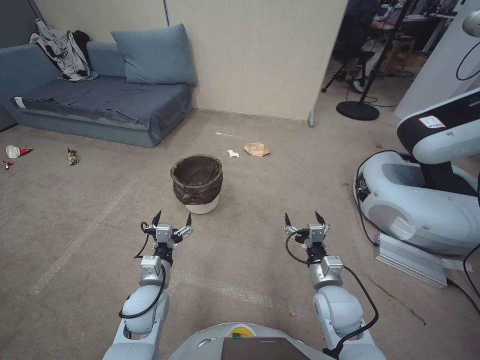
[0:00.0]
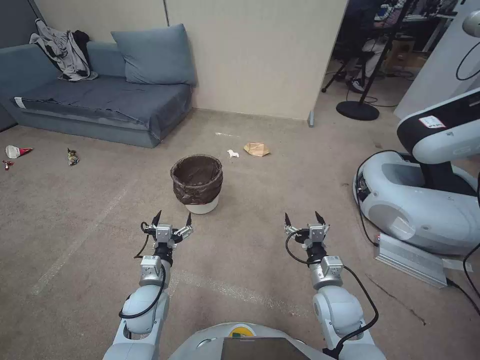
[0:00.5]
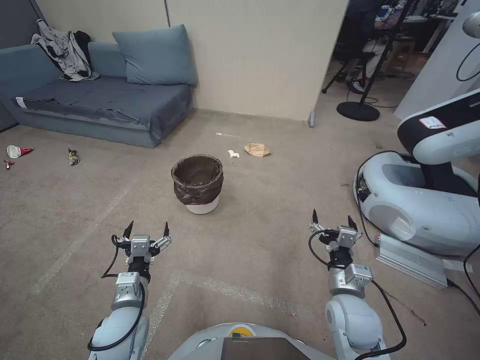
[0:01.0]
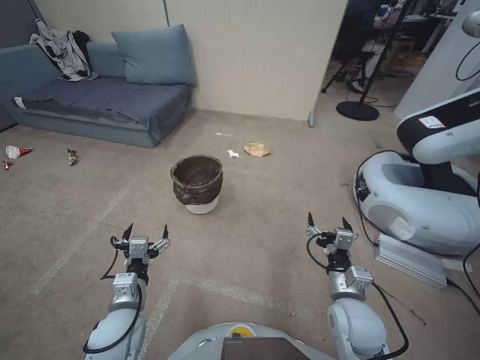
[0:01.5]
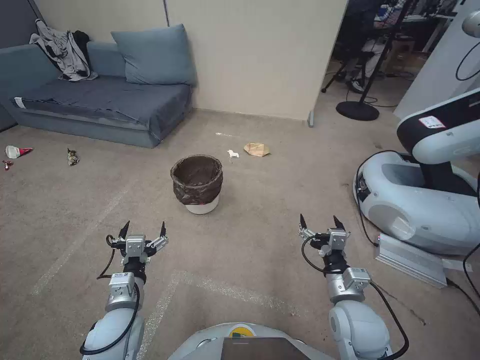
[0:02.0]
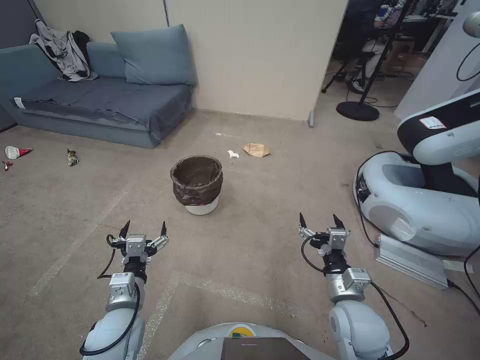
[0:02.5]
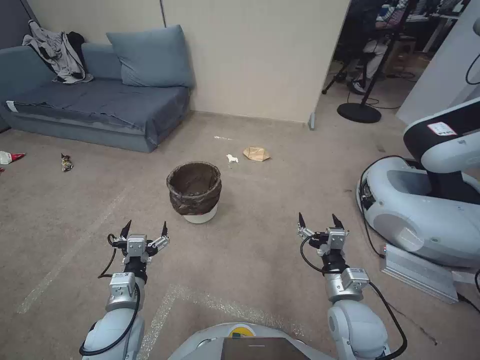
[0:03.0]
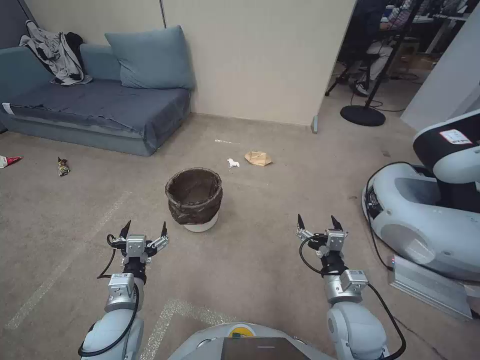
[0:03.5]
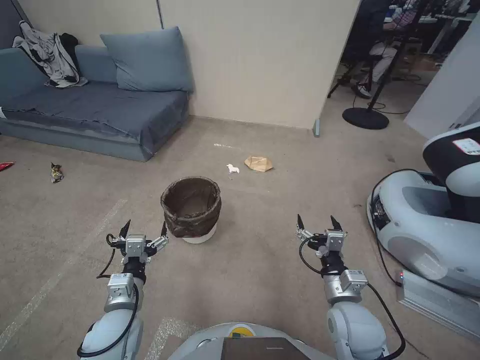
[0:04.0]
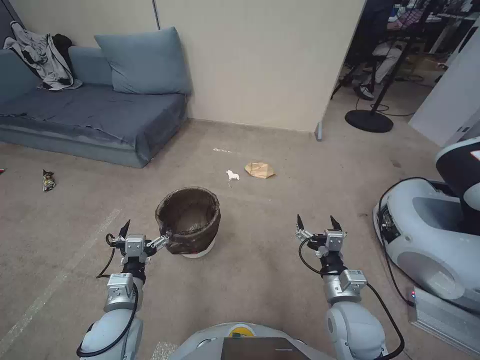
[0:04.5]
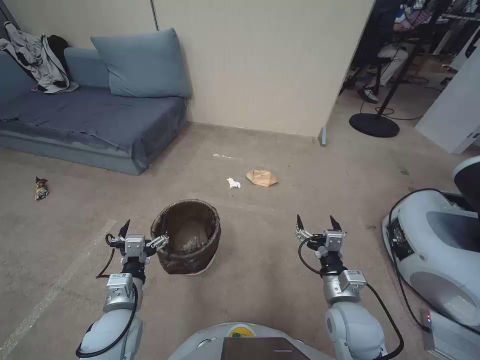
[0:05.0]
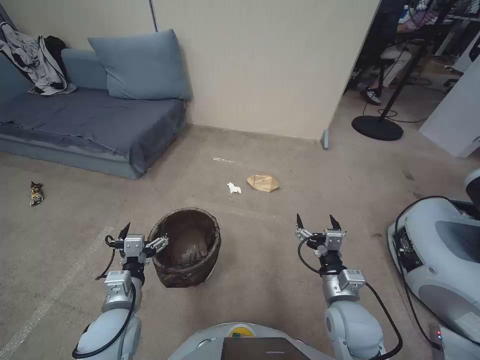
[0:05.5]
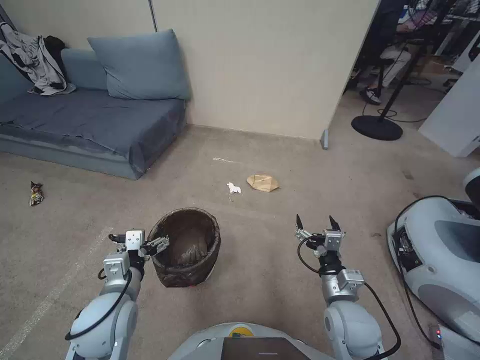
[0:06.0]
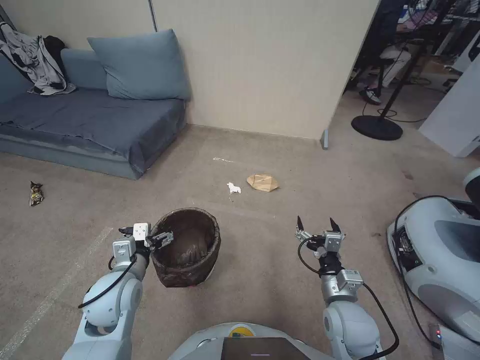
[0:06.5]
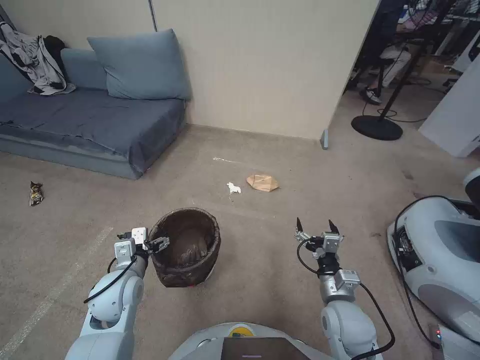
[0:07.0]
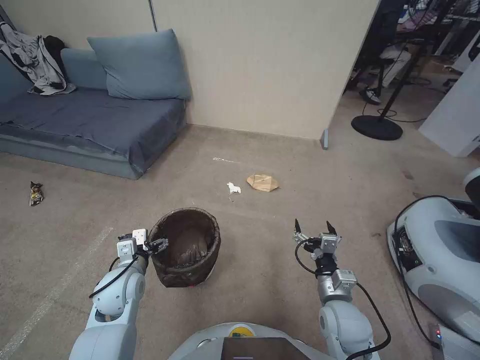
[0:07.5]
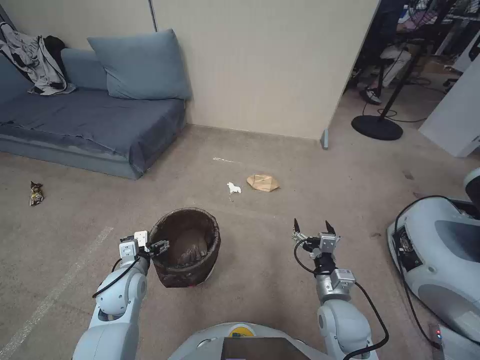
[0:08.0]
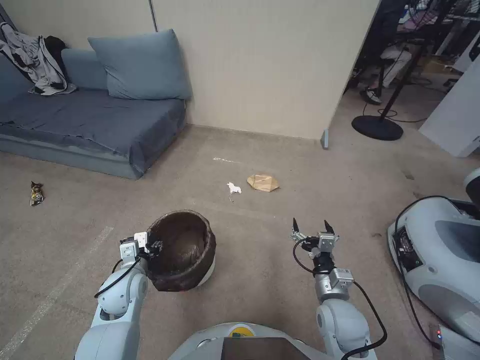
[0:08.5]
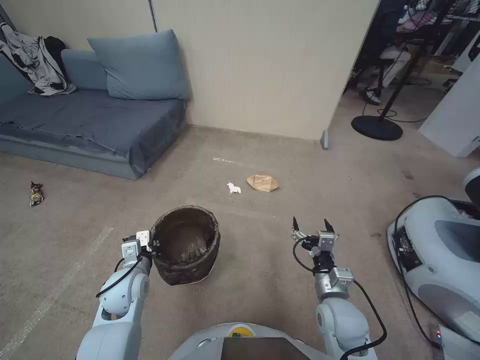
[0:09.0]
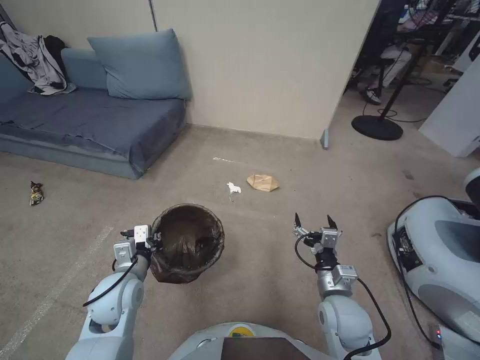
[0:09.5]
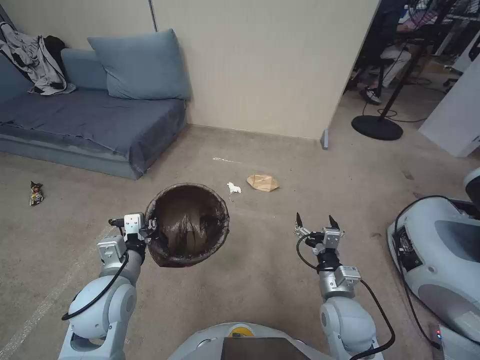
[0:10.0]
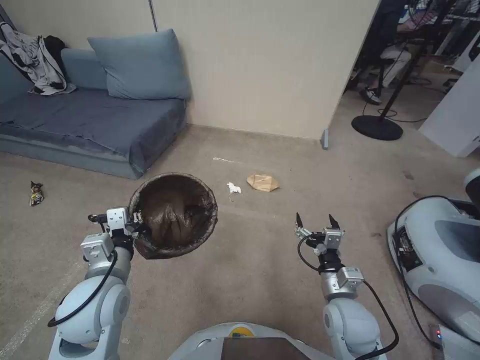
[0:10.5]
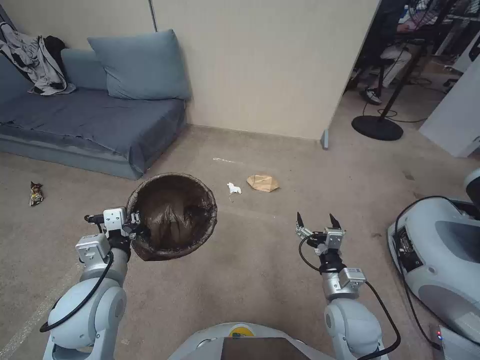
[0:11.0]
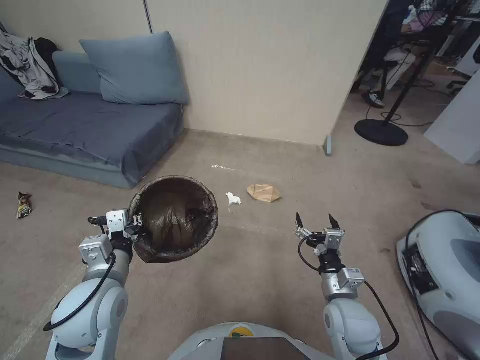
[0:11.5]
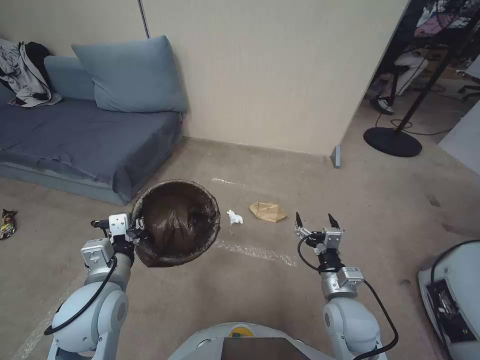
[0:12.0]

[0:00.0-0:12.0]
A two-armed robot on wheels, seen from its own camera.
Task of the whole recording: Pick up the trash bin, then pick up the garbage from the floor and place it into the trash bin.
0:06.0 to 0:08.0: The left gripper goes roughly 10 cm forward and downward.
0:08.0 to 0:10.0: The left gripper moves upward, approximately 10 cm, and closes up.

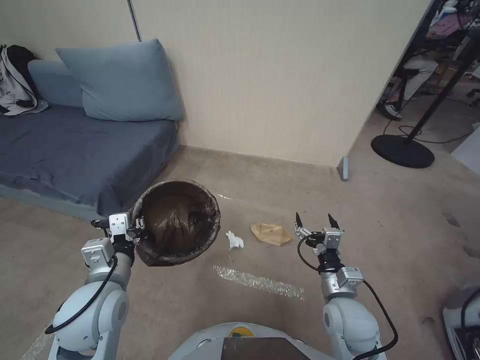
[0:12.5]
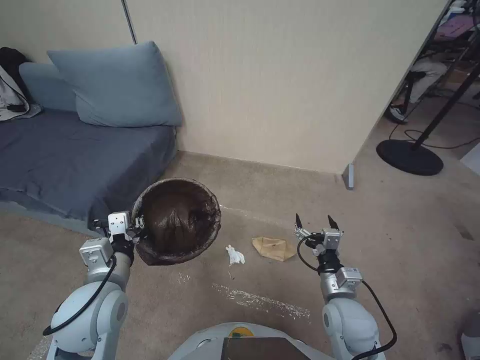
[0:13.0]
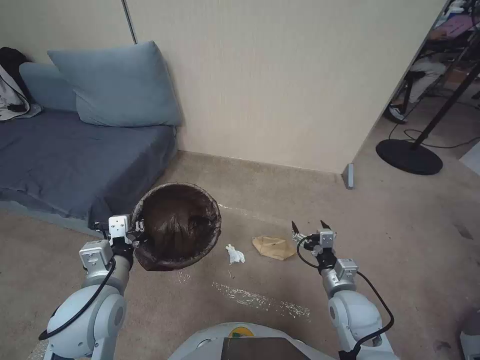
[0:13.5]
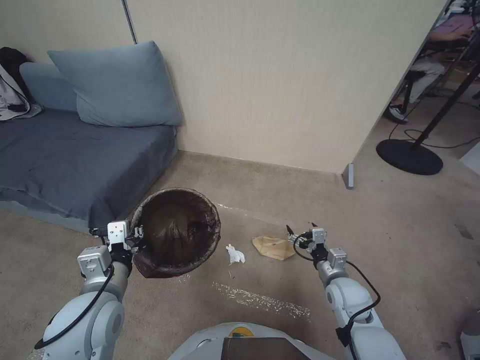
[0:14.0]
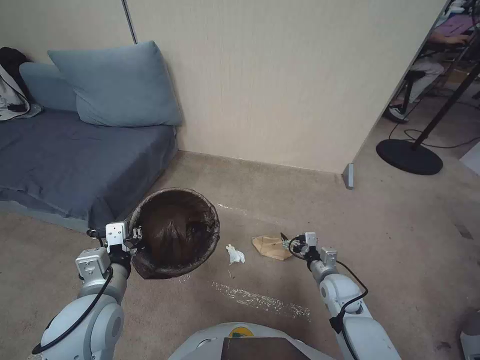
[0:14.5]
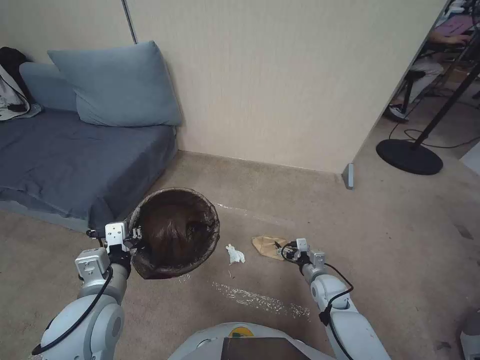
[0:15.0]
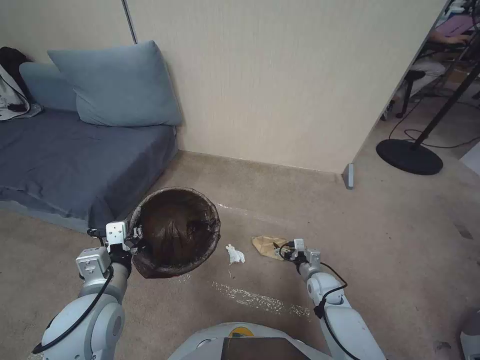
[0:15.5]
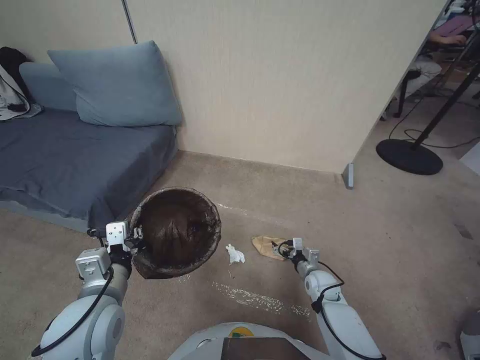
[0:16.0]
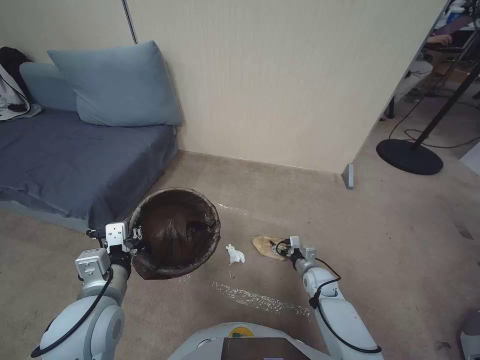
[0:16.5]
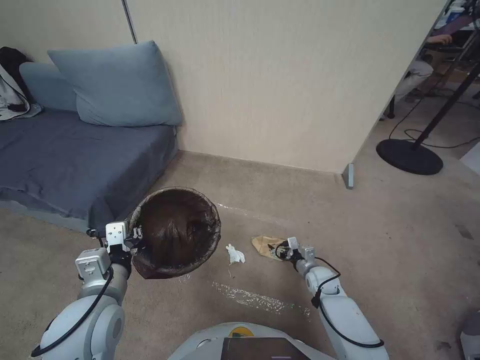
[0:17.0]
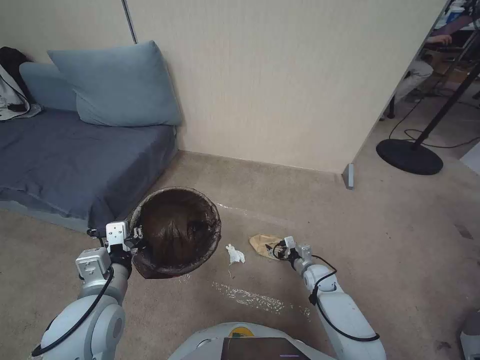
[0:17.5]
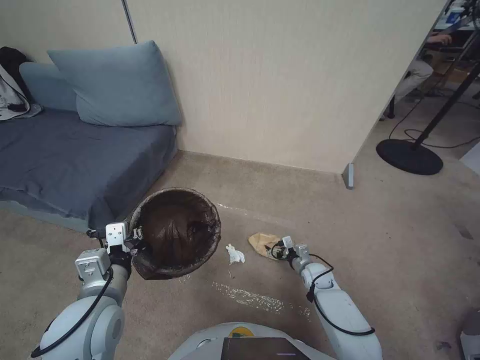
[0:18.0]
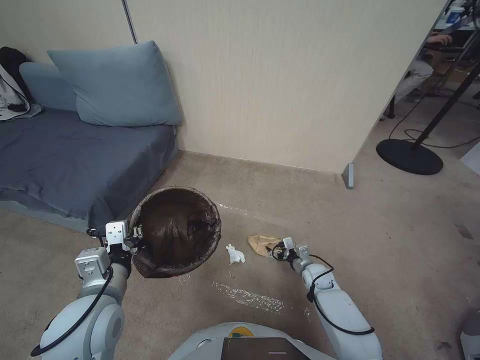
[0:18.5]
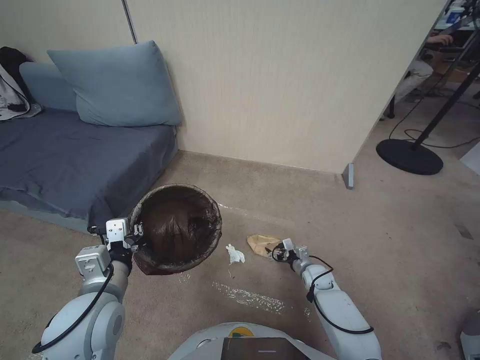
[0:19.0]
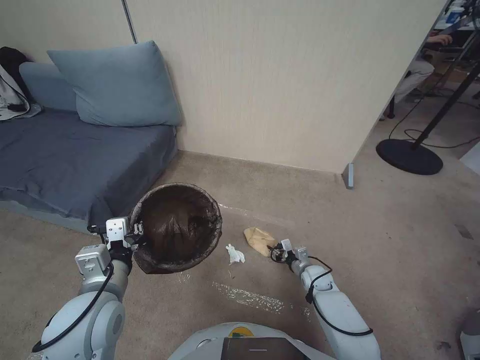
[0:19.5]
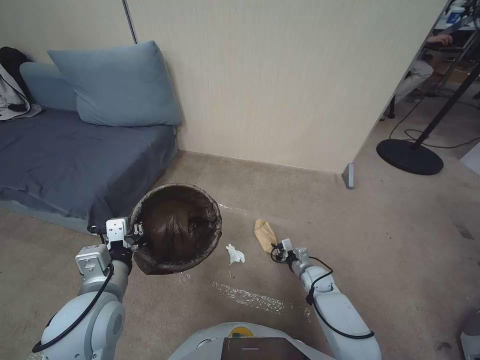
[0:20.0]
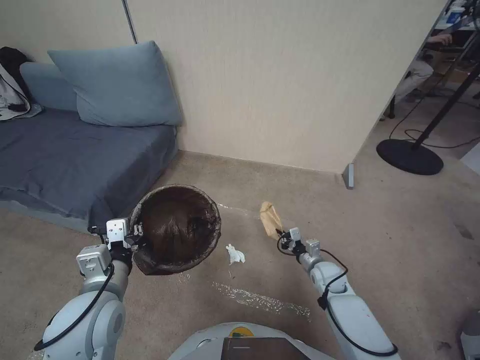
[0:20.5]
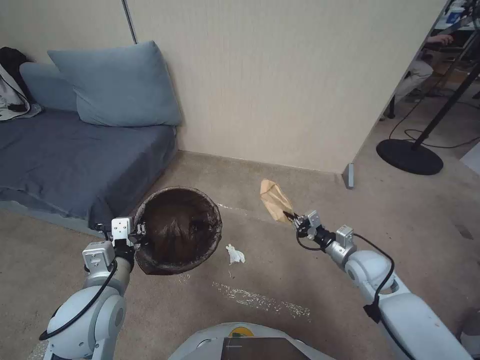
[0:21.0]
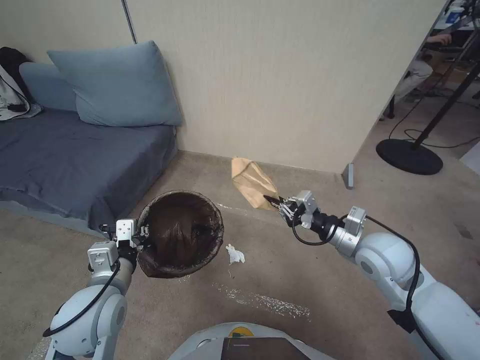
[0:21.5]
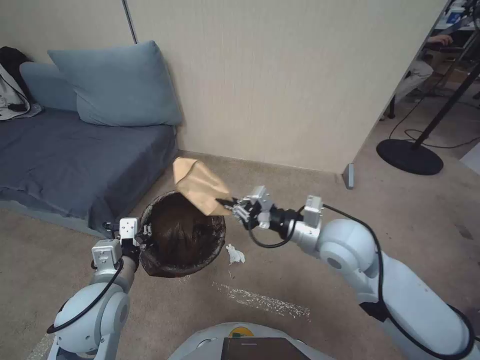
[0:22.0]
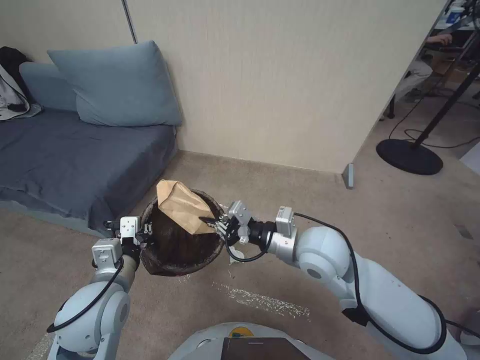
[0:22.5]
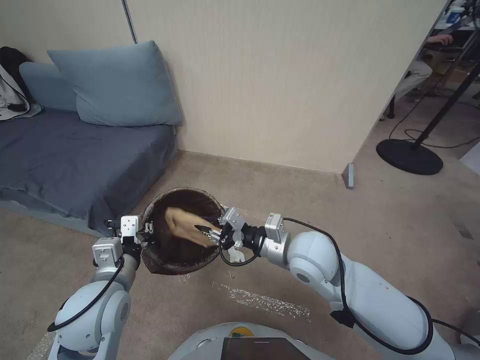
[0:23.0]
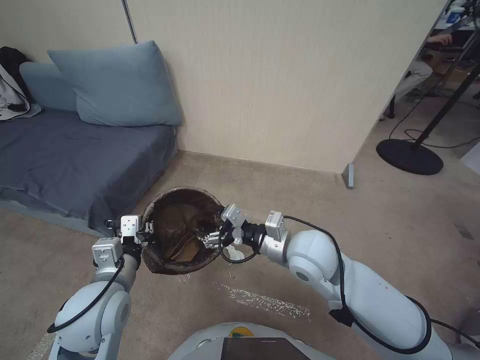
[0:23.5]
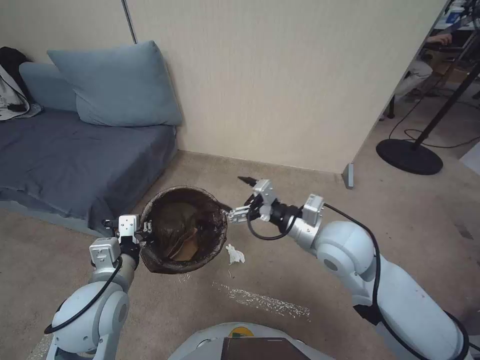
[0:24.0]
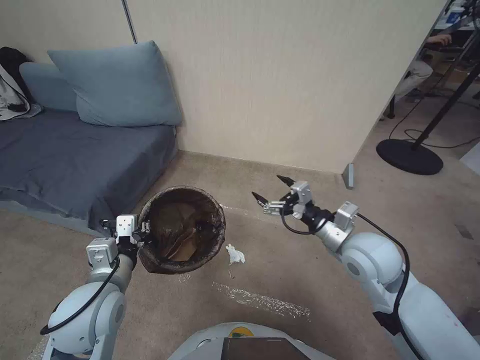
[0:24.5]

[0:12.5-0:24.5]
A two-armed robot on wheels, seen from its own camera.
Task of the whole recording: Pick up the trash bin, then pick up the garbage from the floor and place it into the trash bin.
0:12.5 to 0:14.5: The right gripper shifts about 10 cm downward and forward.
0:14.5 to 0:16.5: The right gripper heads downward, covering roughly 10 cm.
0:16.5 to 0:18.5: The grippers move only a little.
0:18.5 to 0:20.5: The right gripper moves about 5 cm, and closes up.
0:20.5 to 0:22.5: The right gripper goes about 35 cm upward and to the left.
0:22.5 to 0:24.5: The right gripper travels to the right by approximately 10 cm, and opens.

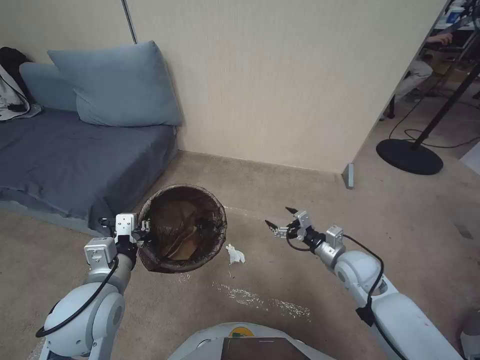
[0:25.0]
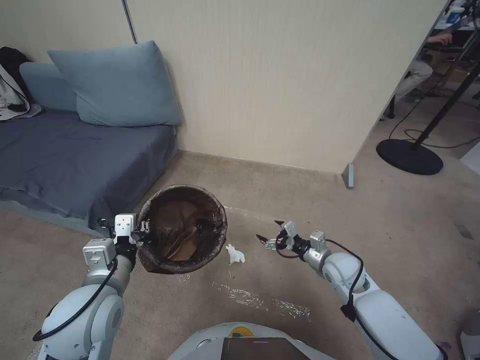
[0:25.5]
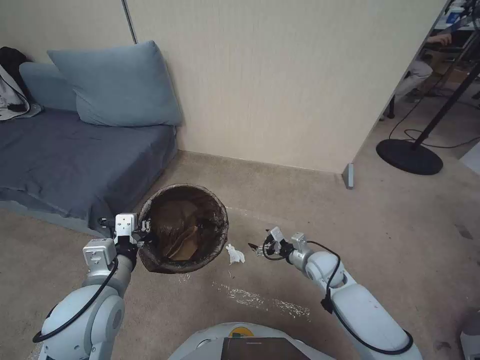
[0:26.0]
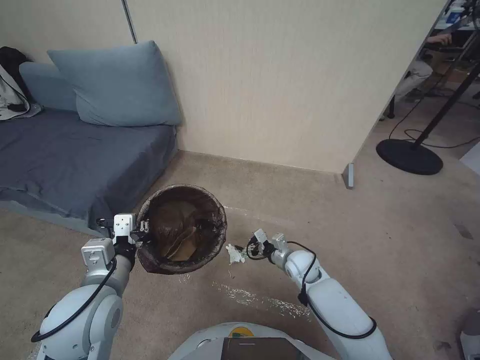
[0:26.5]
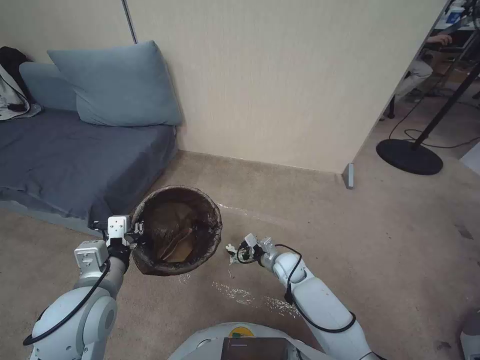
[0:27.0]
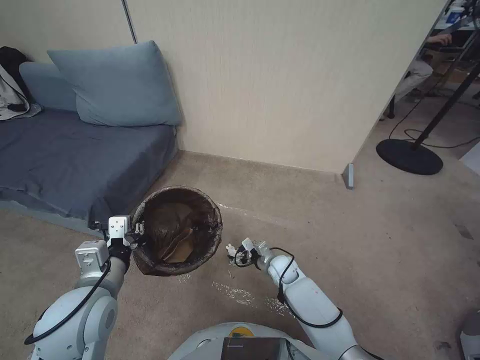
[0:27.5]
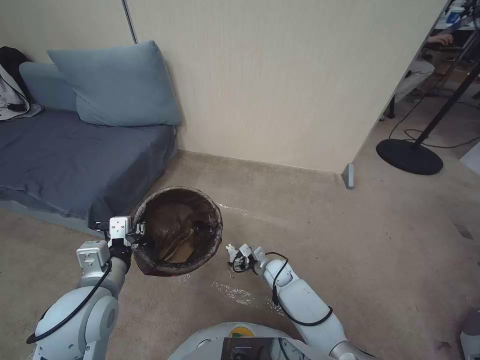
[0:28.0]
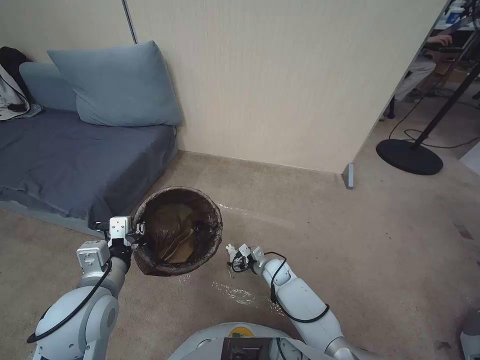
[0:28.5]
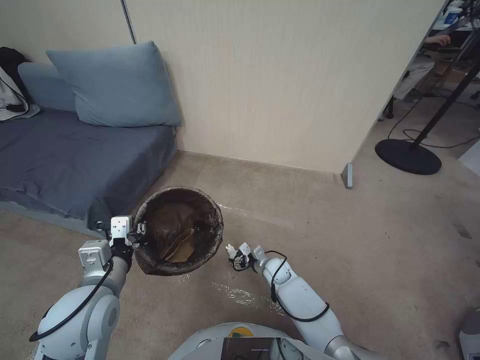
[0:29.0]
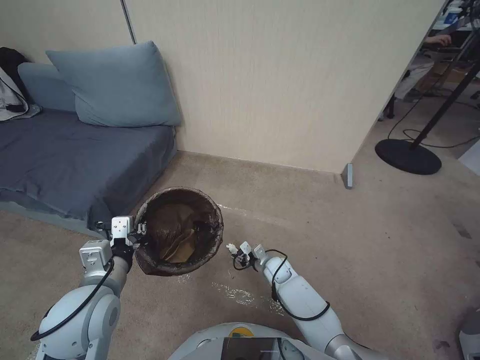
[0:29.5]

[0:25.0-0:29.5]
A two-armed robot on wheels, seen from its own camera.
Task of the whole recording: Pick up the trash bin, then pick up the garbage from the floor and place it into the trash bin.
0:25.0 to 0:27.0: The right gripper shifts about 20 cm downward and to the left.
0:27.0 to 0:29.5: The right gripper goes approximately 10 cm downward, and closes.
